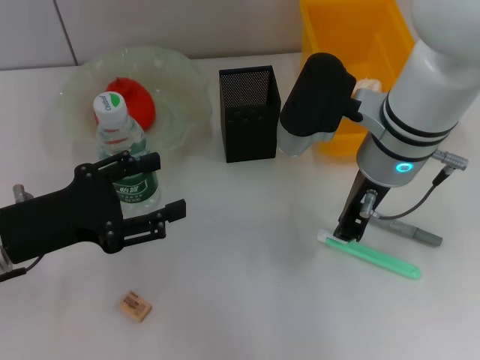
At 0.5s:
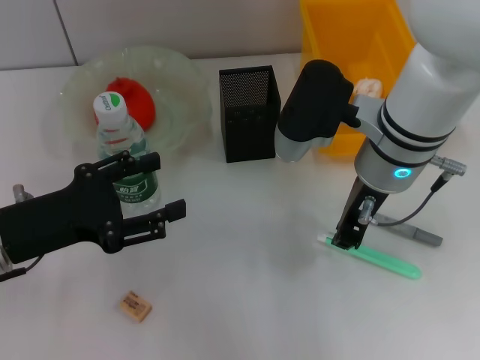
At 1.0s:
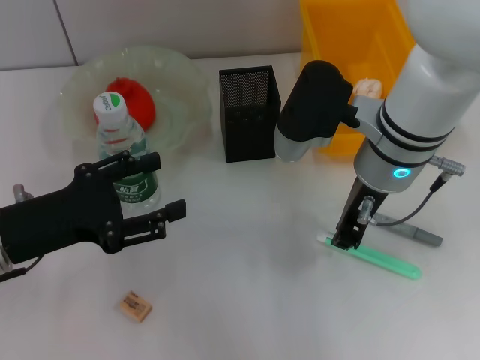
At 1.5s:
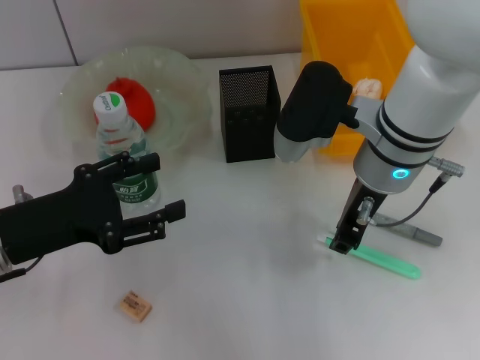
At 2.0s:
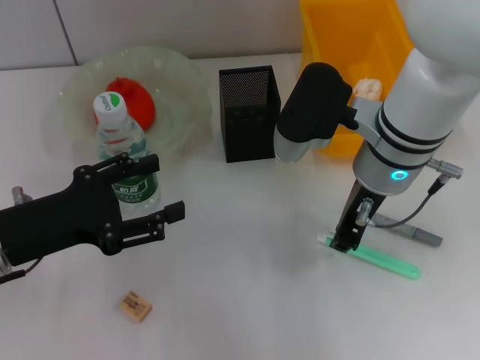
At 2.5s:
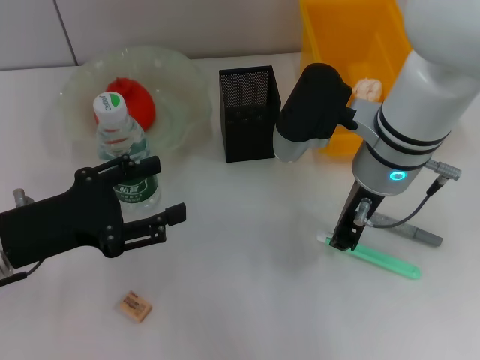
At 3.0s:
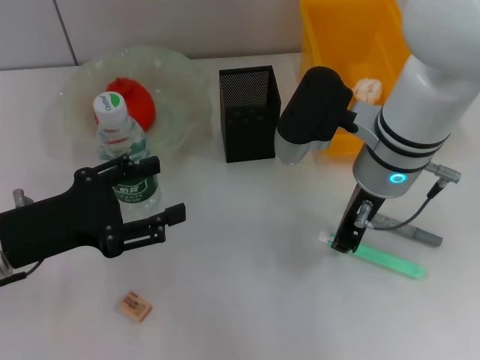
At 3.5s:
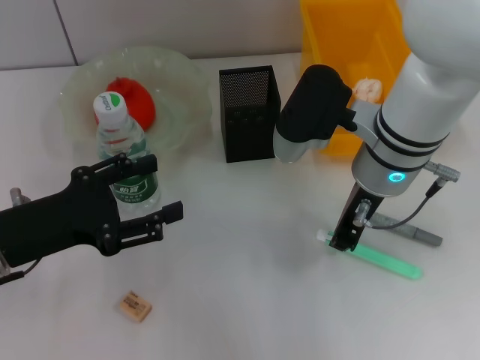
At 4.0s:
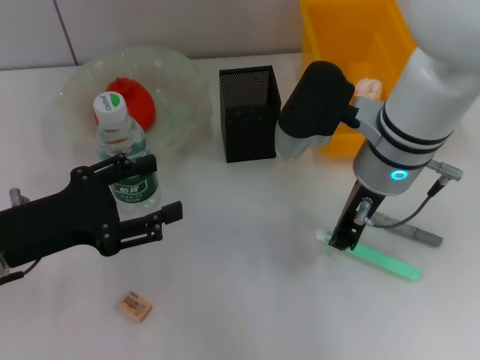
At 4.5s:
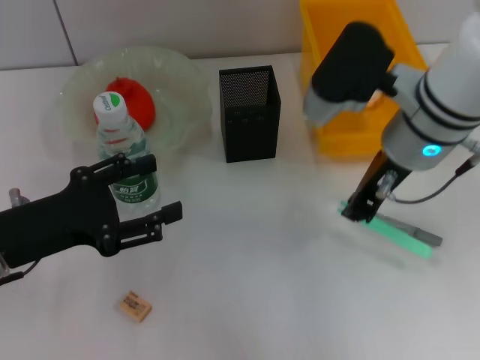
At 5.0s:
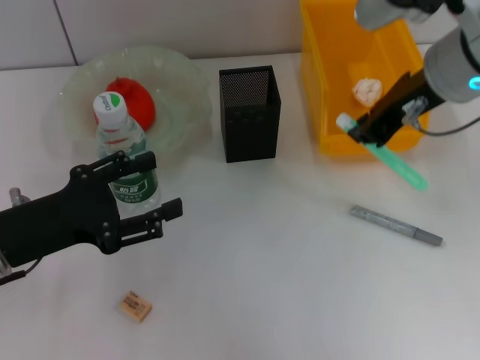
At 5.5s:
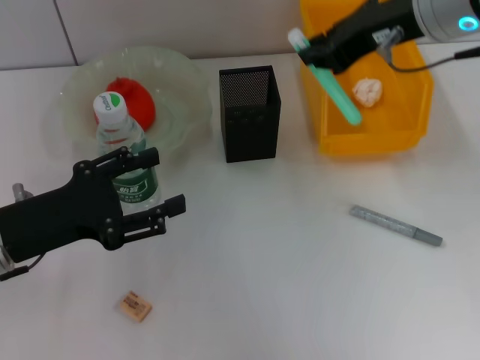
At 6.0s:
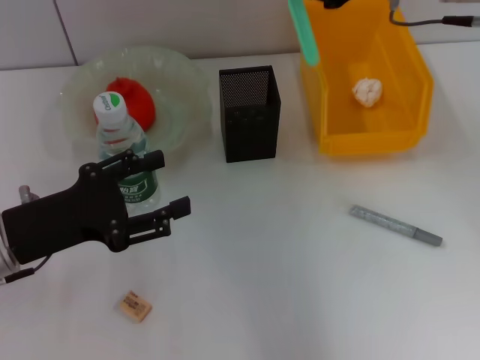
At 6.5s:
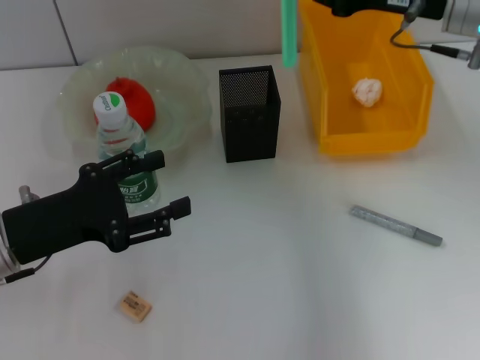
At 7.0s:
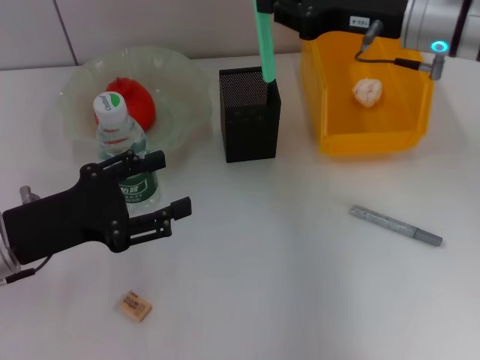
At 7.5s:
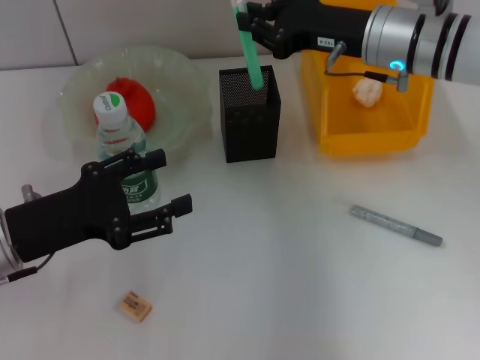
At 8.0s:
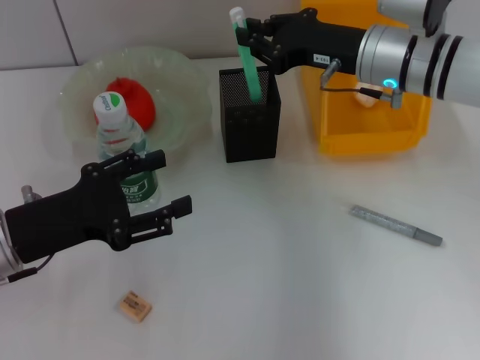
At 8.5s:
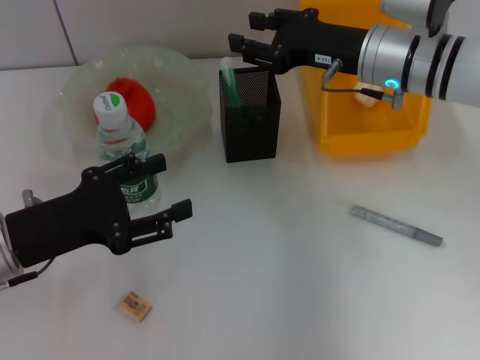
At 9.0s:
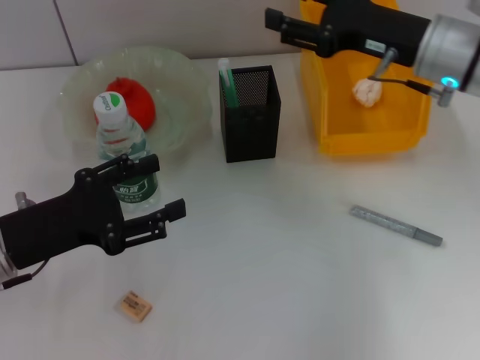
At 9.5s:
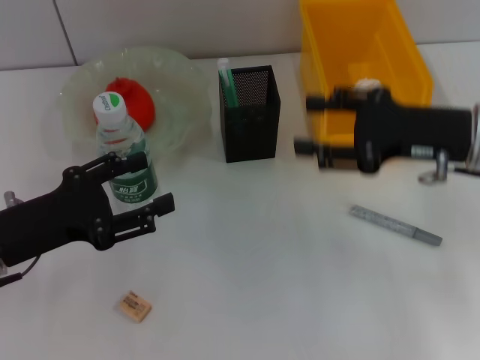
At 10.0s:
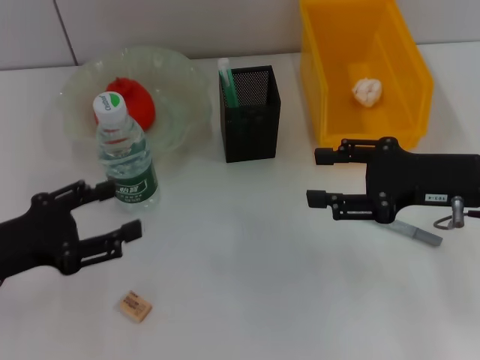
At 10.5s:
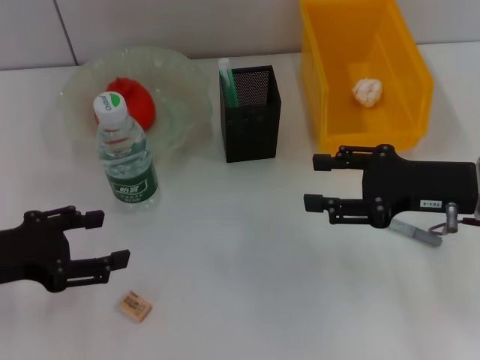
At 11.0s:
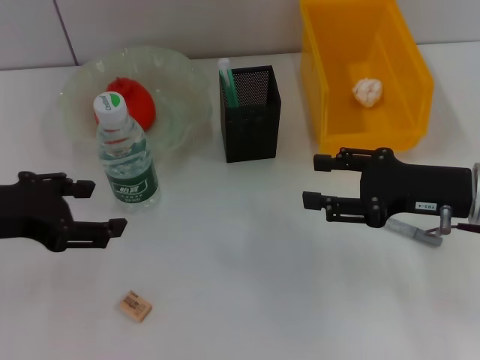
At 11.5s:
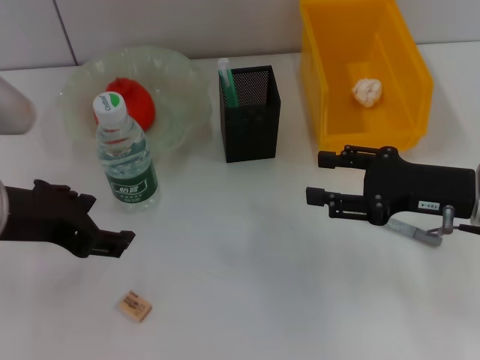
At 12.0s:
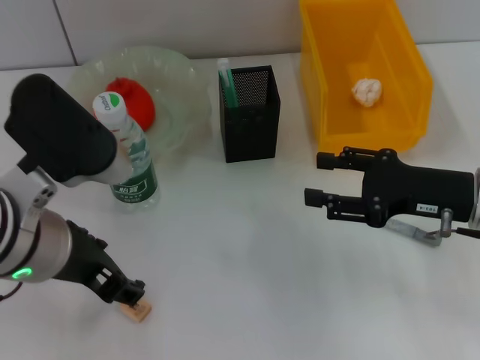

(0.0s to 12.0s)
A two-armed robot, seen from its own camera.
Step, 0.0s - 3.5s: Grab the blue utility knife with the right hand.
Step, 4.0s - 8.0s: Place the blue utility knife into the pen holder with the right hand.
0.0s - 4.0s: Neither gripper changes place.
4.0s - 6.0s: The right gripper heads upward and to the right, covering approximately 15 cm.
6.0s - 8.0s: The right gripper travels downward by about 10 cm.
8.0s - 10.0s: The right gripper shifts roughly 15 cm backward and to the right, and opens up.
10.0s - 12.0s: The left gripper travels to the right and upward by about 15 cm.

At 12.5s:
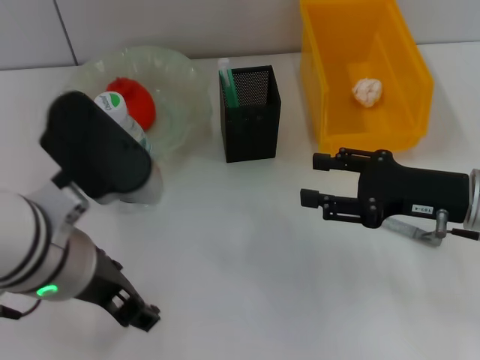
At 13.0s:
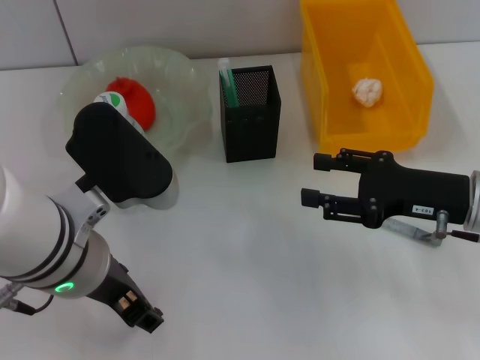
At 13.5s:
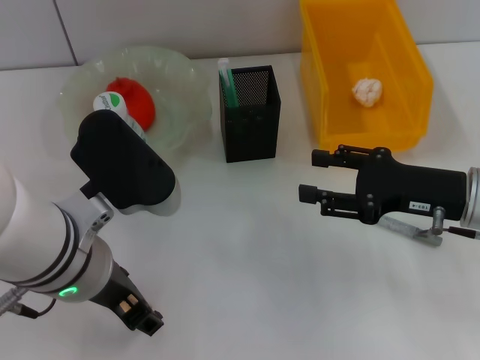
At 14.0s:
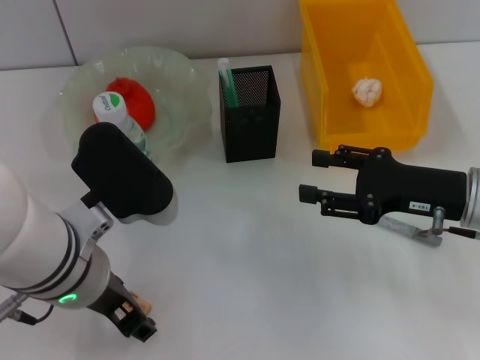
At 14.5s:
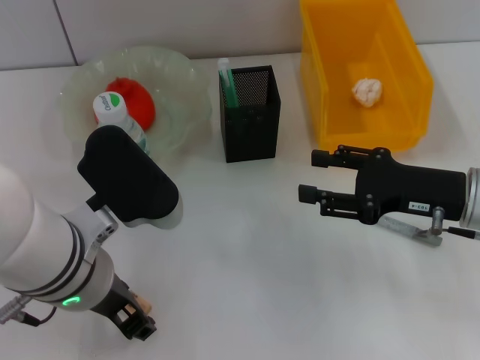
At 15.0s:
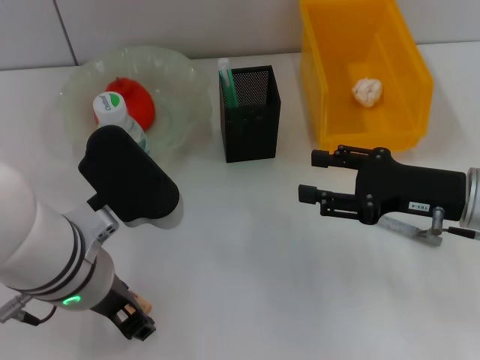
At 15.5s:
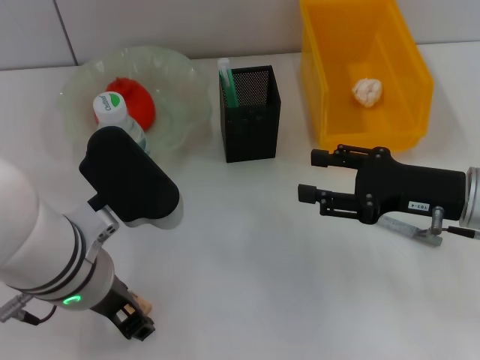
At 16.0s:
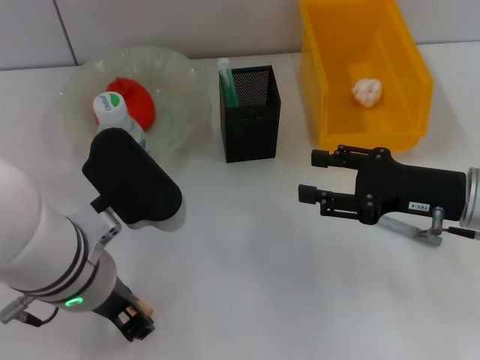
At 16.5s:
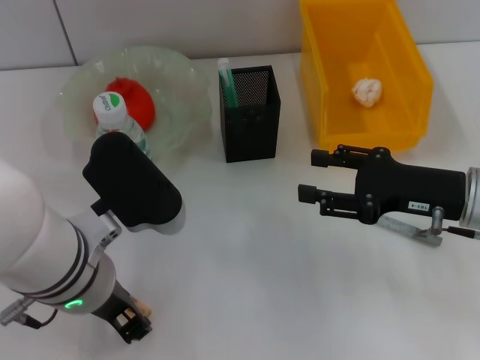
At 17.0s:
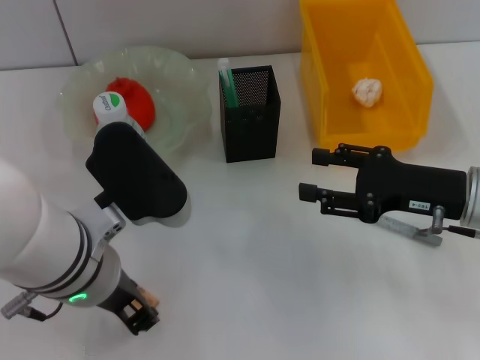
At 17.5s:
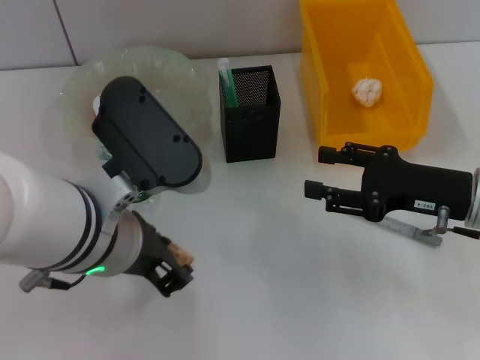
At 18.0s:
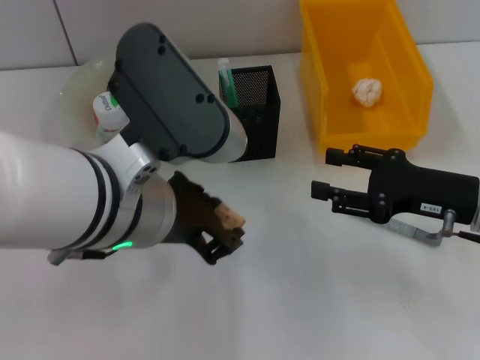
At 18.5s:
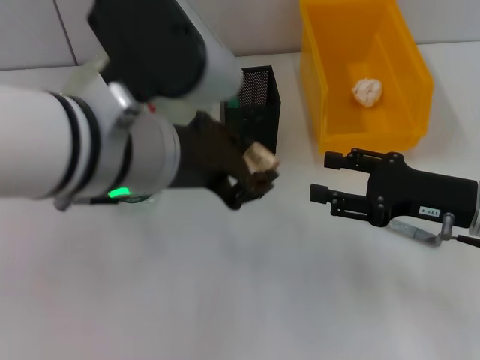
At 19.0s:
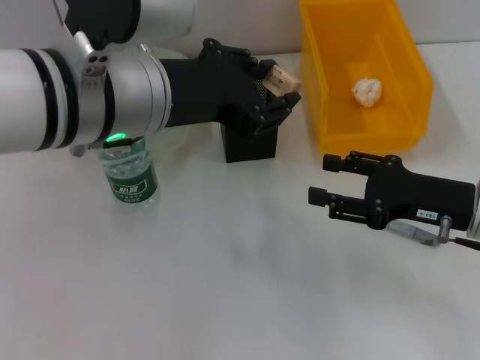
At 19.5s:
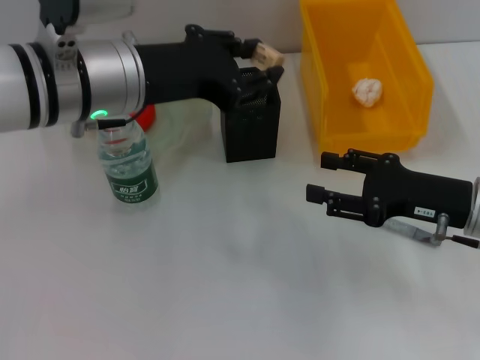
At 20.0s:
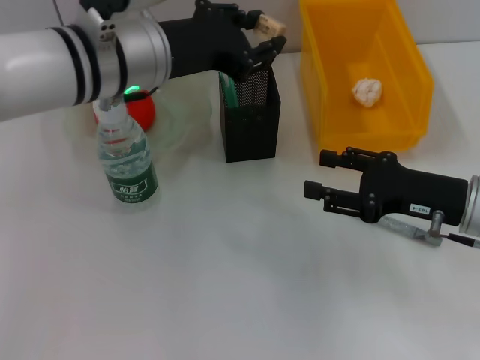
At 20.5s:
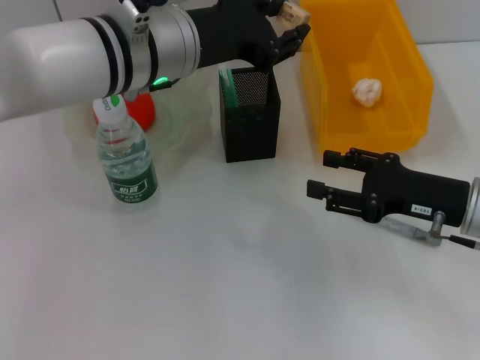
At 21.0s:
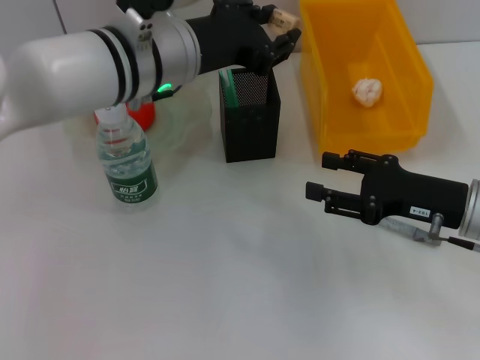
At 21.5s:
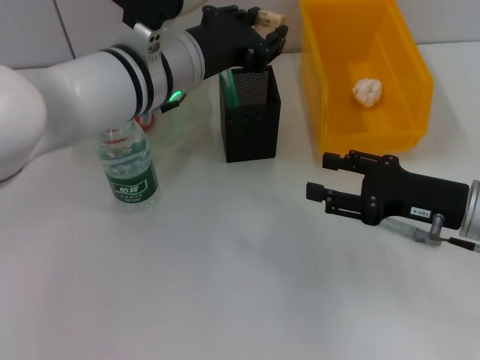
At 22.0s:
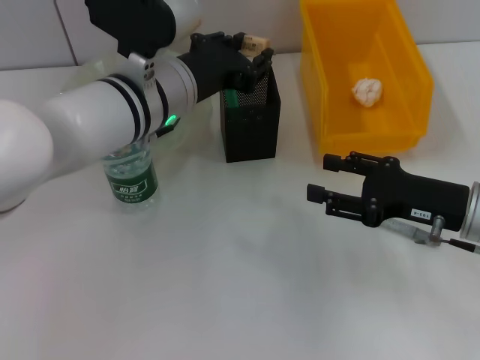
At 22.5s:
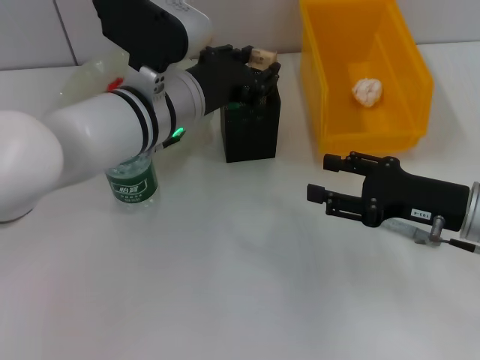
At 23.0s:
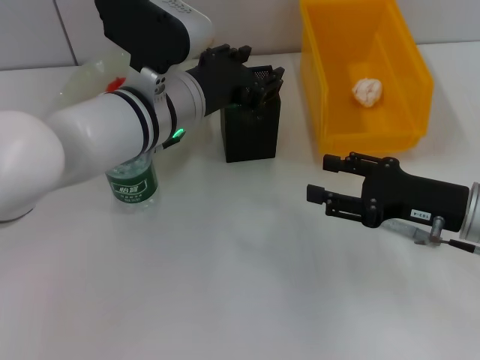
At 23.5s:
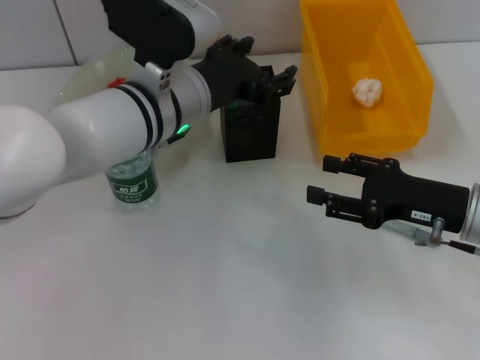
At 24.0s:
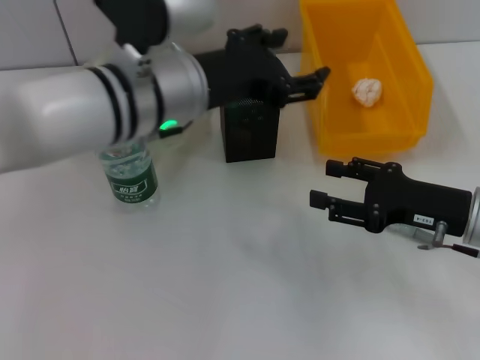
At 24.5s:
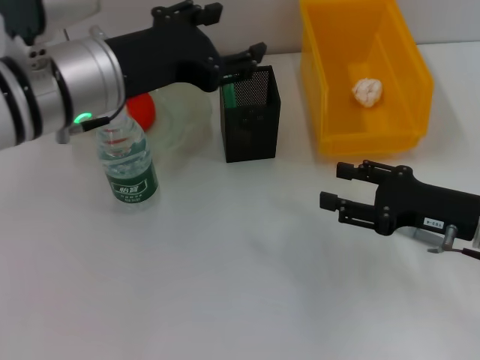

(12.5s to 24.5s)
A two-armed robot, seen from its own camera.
Step, 12.5s - 16.5s: Grab the eraser with the right hand.
12.5s - 14.5s: The grippers make only small movements.
14.5s - 16.5s: Both grippers stay put.
16.5s - 18.5s: The left gripper is displaced upward by some 10 cm.
18.5s - 20.5s: The left gripper is displaced forward by some 10 cm.
20.5s - 22.5s: The left gripper goes about 5 cm downward.
22.5s - 24.5s: The left gripper moves to the left and upward, approximately 10 cm, and opens its fingers.

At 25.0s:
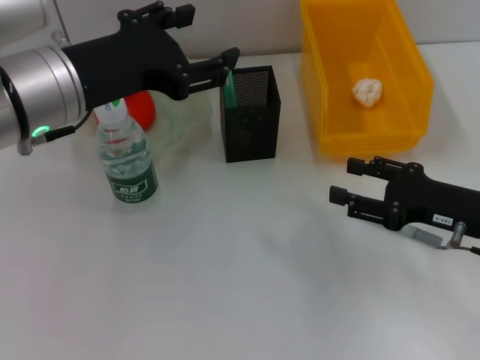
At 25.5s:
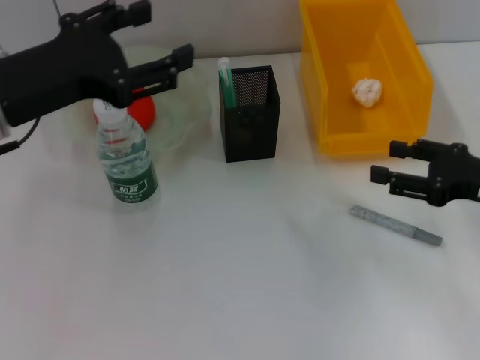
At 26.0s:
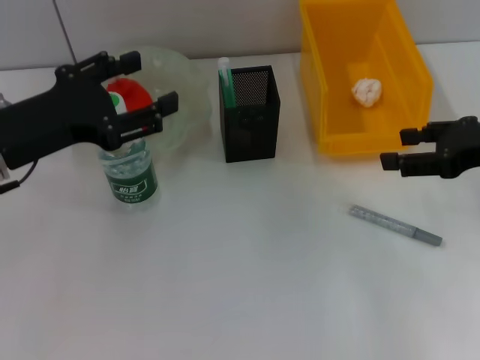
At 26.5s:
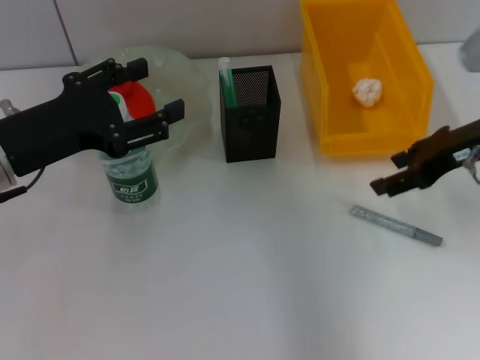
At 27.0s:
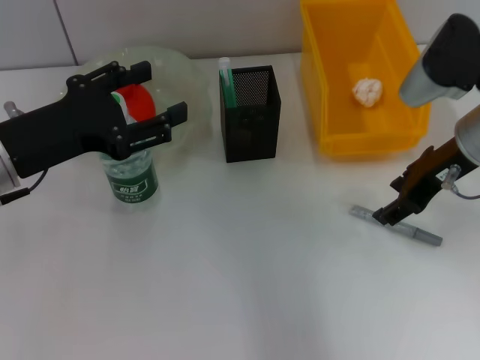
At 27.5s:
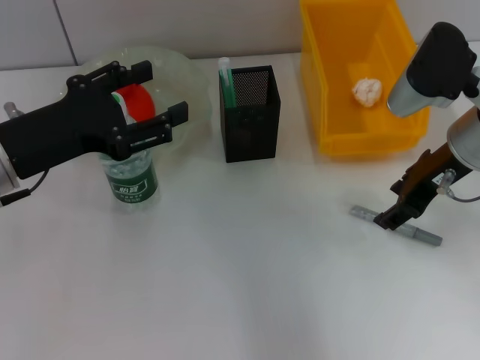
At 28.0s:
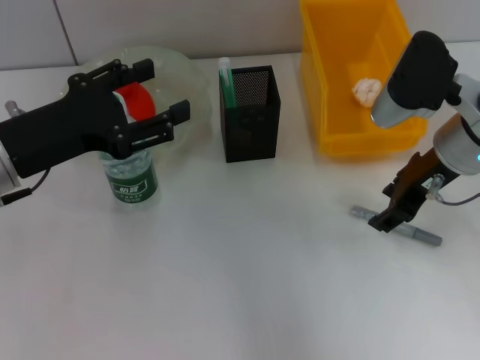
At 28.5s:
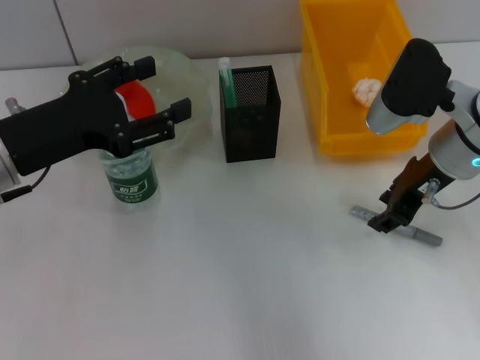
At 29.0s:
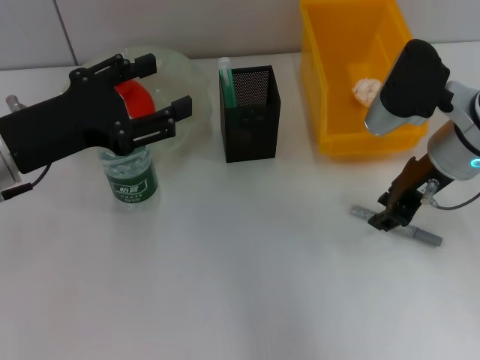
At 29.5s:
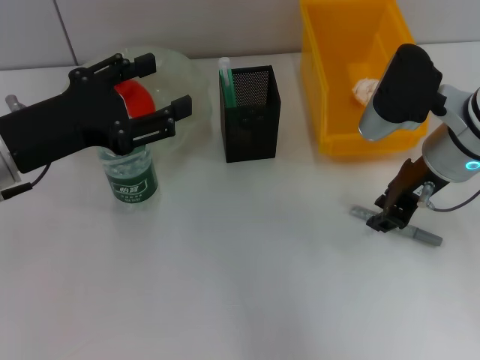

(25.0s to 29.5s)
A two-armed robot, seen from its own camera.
25.0s - 27.0s: The left gripper goes roughly 10 cm to the left and downward. Meanwhile the right gripper shifts some 15 cm upward and forward.
27.0s - 29.5s: The right gripper closes its fingers.
